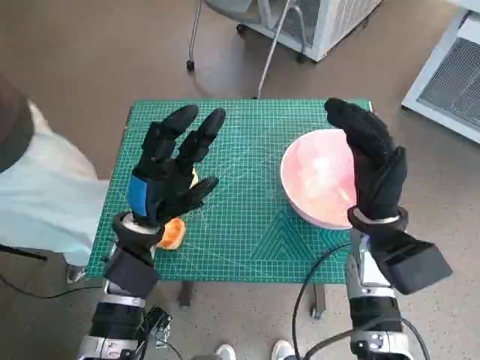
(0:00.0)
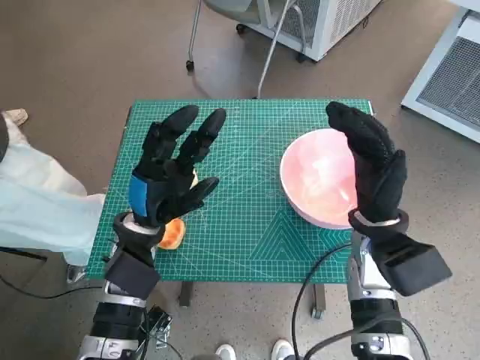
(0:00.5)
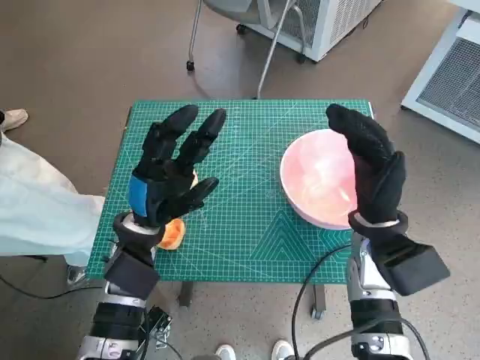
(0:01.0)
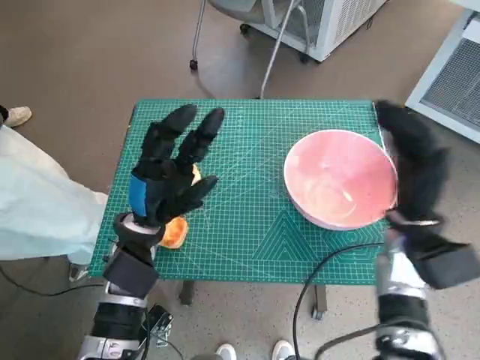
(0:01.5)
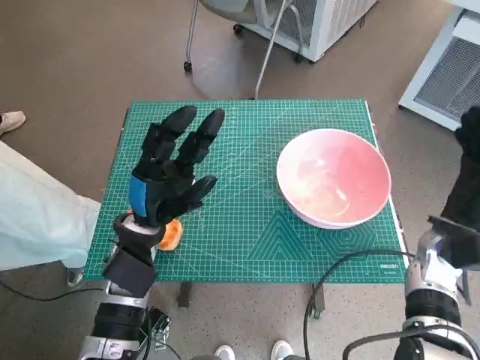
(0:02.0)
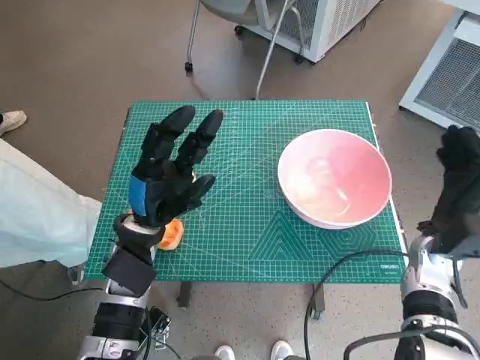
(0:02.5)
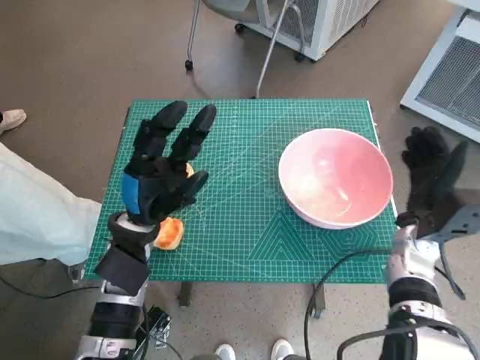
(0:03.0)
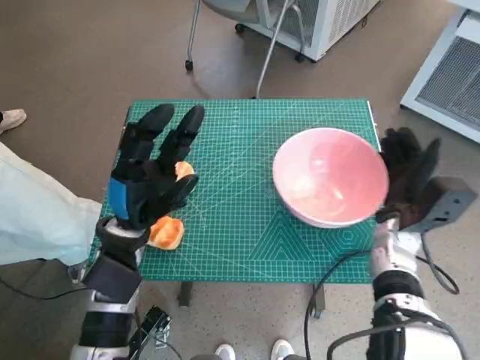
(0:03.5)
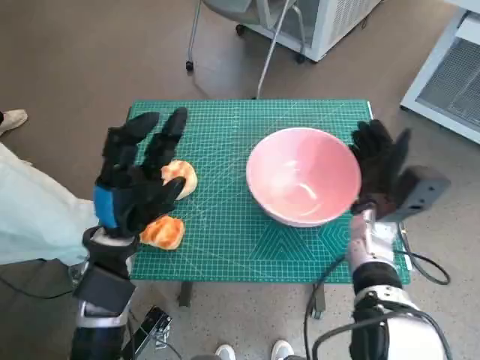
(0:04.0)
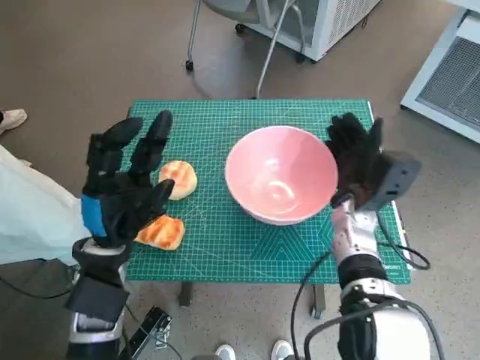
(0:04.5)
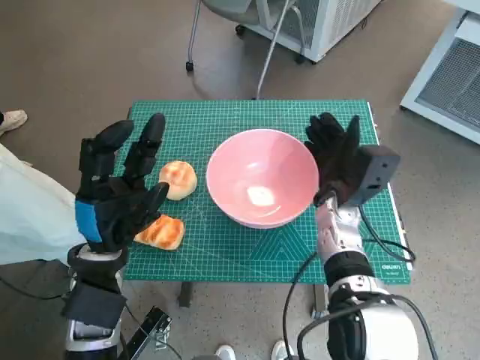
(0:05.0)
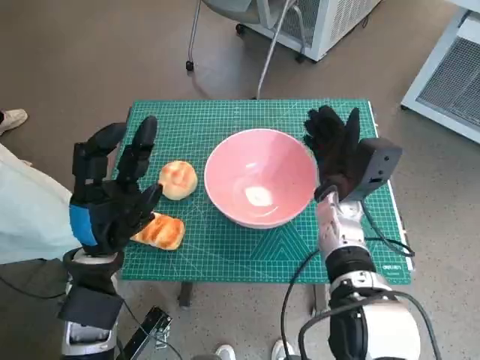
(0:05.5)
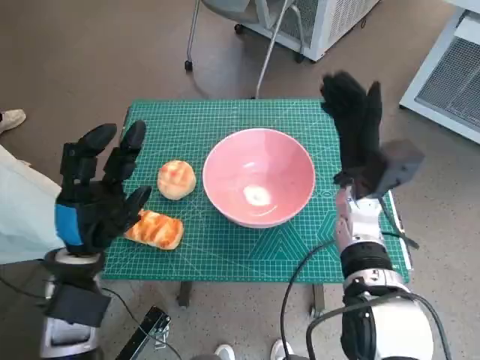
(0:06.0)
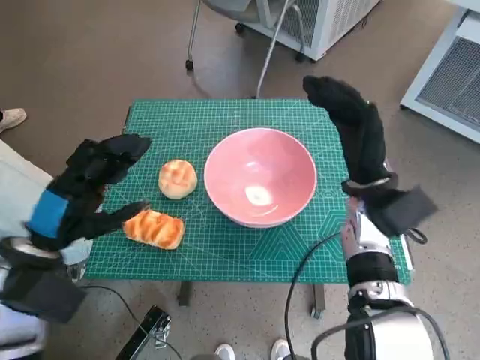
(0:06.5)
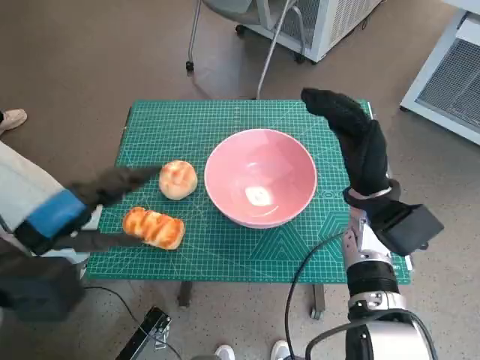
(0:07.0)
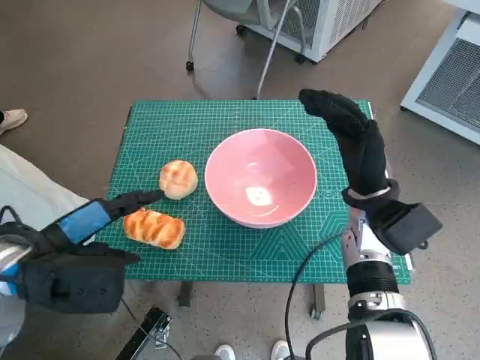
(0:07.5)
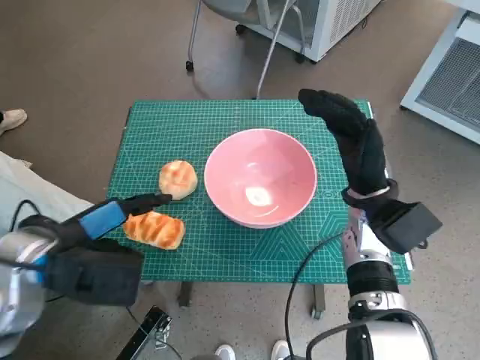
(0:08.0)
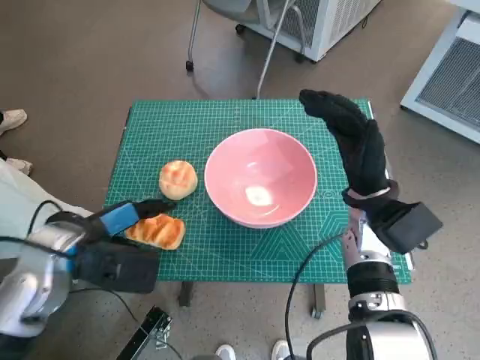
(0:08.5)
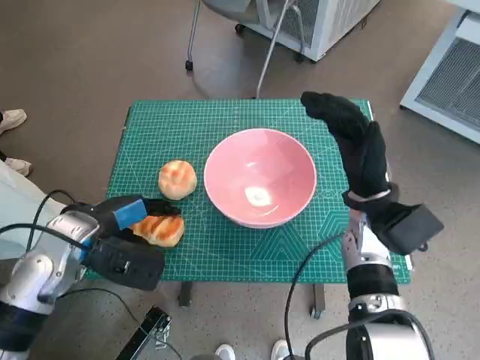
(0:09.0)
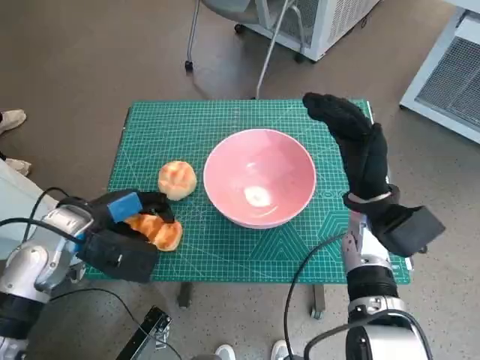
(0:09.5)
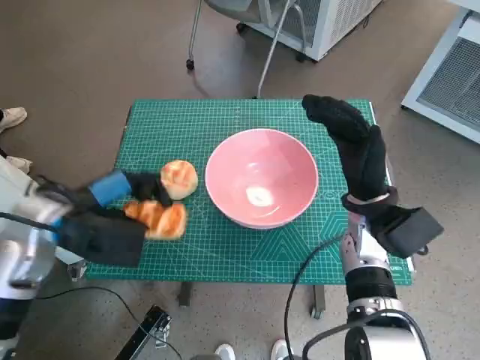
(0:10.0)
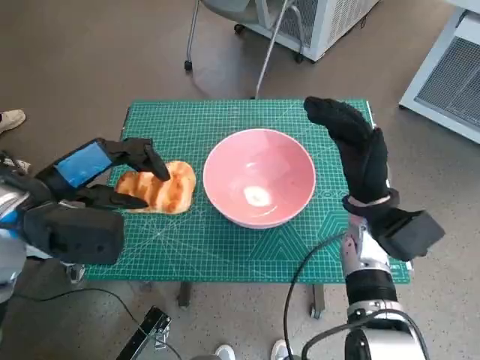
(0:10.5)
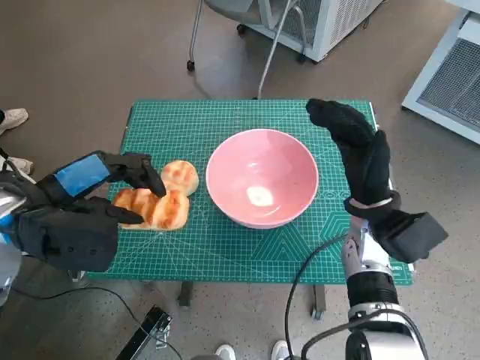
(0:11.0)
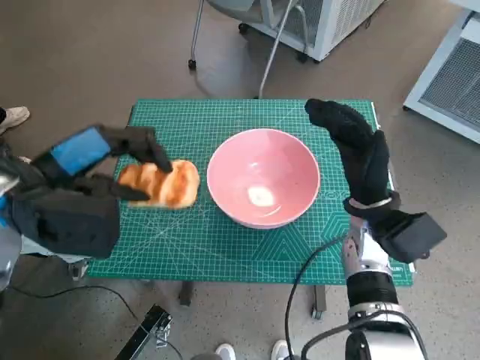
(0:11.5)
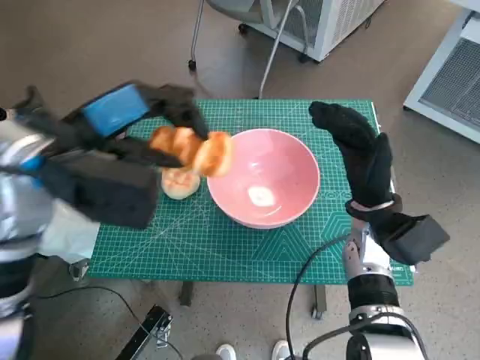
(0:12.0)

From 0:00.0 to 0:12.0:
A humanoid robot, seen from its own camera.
Task of the whole recording: Push the bowl to the center of the table and put the bread into the bowl.
Step, from 0:00.0 to 0:05.5: Move the pink bowl to the center of table with right hand.
Step, from 0:06.0 to 0:09.5: Grasp the long bread with left hand.
From 0:02.0 to 0:04.0: The right hand moves to the left, roughly 10 cm.
From 0:04.0 to 0:06.0: The right hand moves roughly 5 cm.
From 0:06.0 to 0:08.0: The left hand heads upward, covering roughly 5 cm.
From 0:08.0 to 0:10.0: The left hand is displaced forward by roughly 5 cm.
From 0:10.0 to 0:12.0: The left hand is displaced upward by about 10 cm.

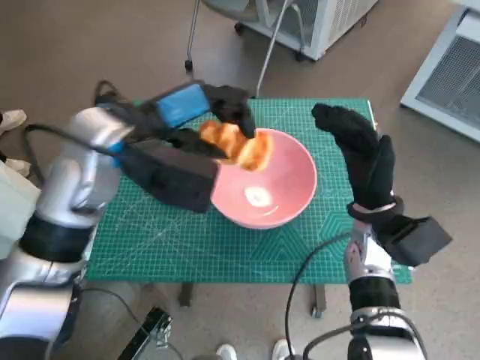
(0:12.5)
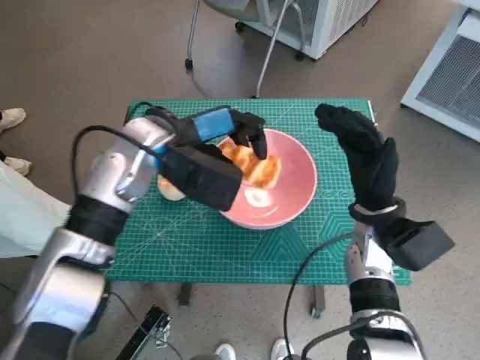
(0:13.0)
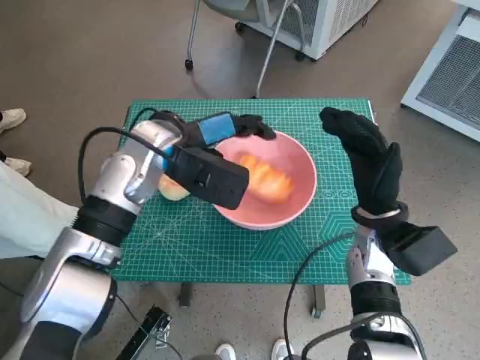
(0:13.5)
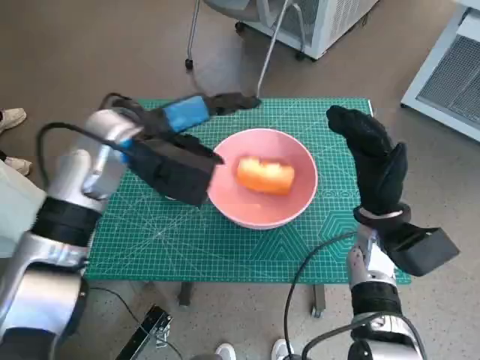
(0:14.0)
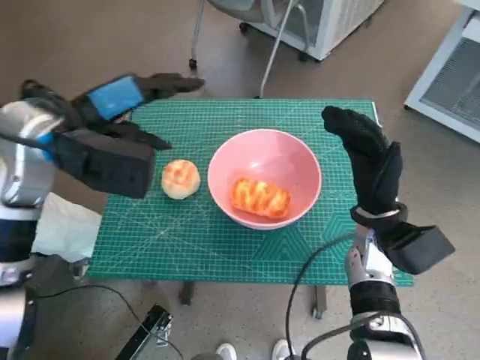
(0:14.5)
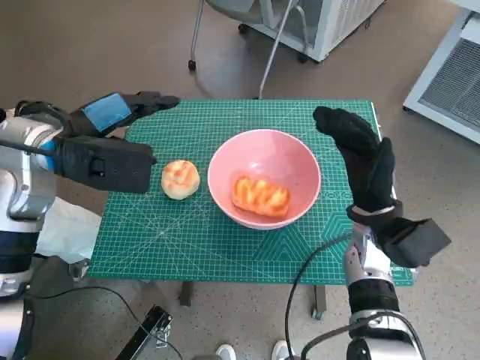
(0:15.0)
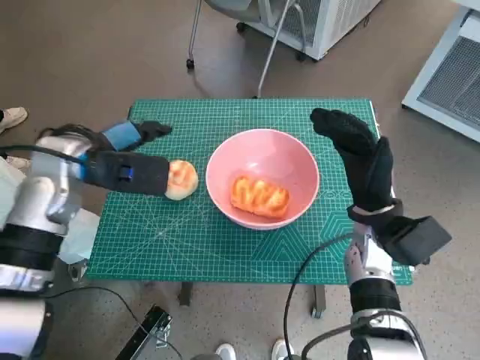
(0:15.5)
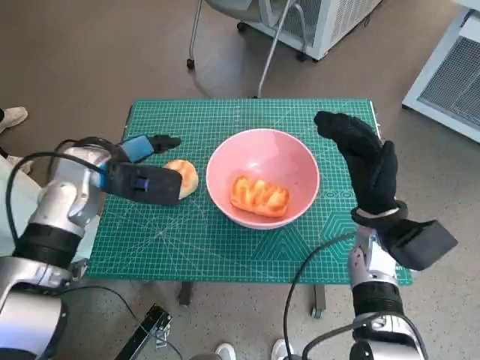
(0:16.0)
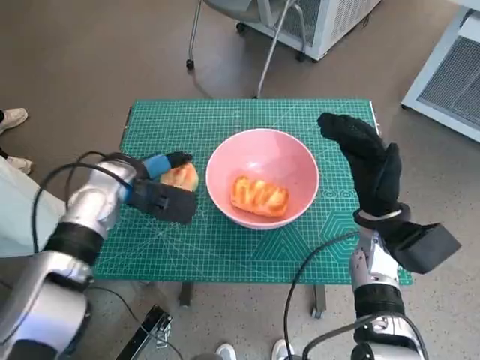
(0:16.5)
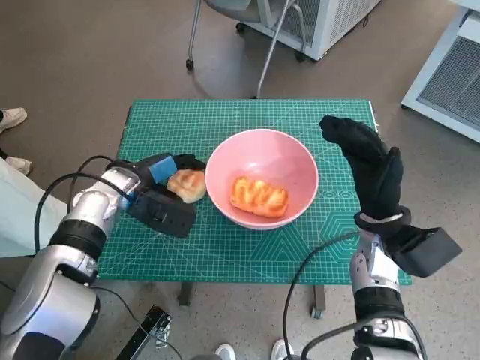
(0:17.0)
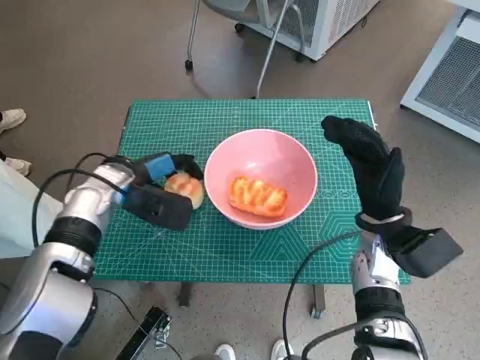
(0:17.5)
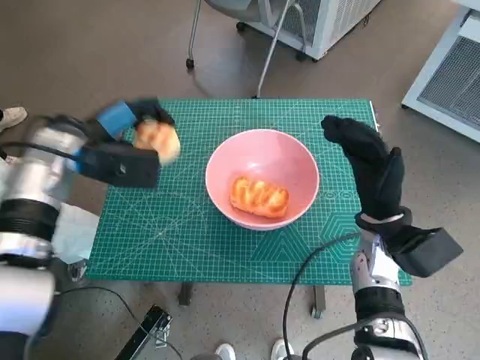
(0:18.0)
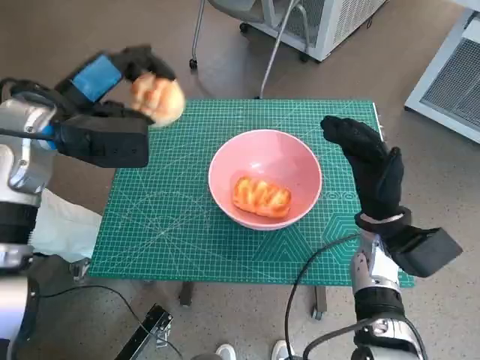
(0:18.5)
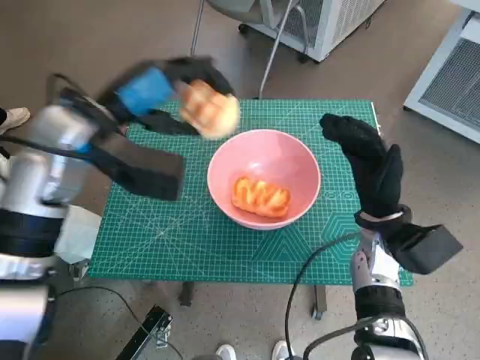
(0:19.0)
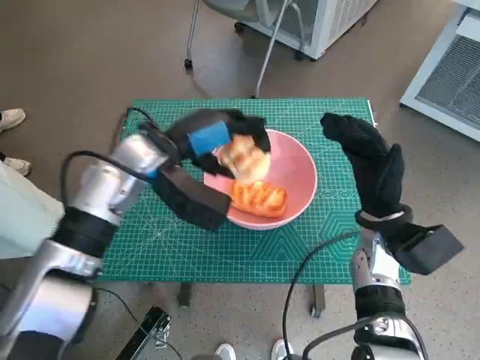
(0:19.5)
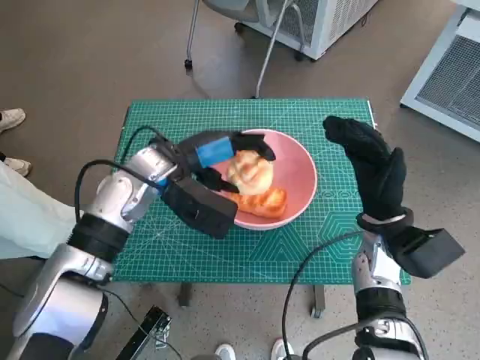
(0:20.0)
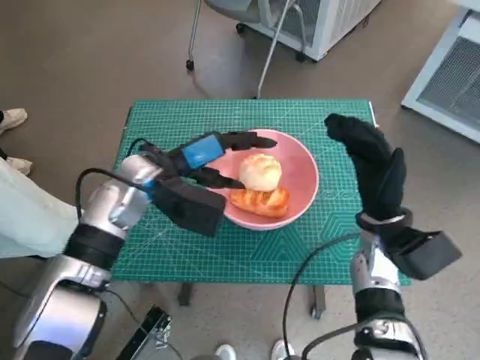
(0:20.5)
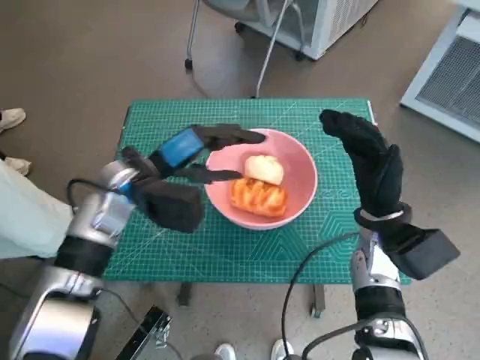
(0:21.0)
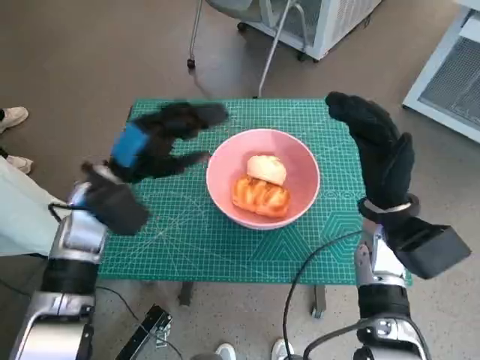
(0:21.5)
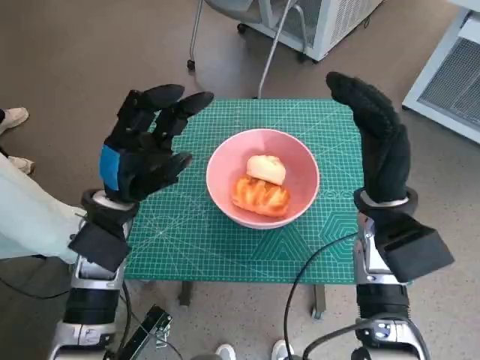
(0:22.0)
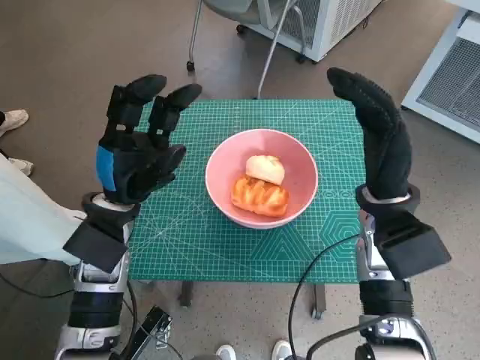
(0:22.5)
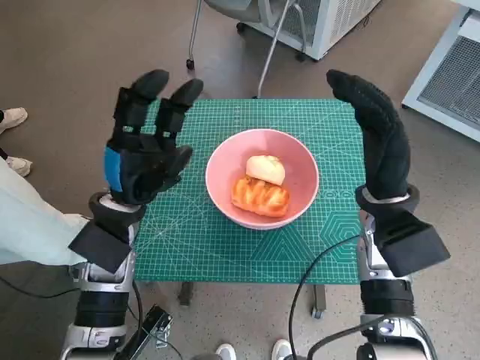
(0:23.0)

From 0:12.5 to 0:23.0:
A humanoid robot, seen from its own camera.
Task of the whole recording: Push the bowl to the center of the table and put the bread into the bowl.
Step, from 0:14.0 to 0:16.5: Grasp the round bread with left hand.
Step, from 0:17.0 to 0:20.5: Place the round bread in pink bowl with left hand.
From 0:12.5 to 0:14.5: The left hand shifts roughly 5 cm to the left.
From 0:14.5 to 0:16.5: The left hand shifts approximately 15 cm downward.
From 0:16.5 to 0:19.0: The left hand travels upward by some 10 cm.
From 0:19.0 to 0:21.0: The left hand travels downward by some 10 cm.
From 0:21.0 to 0:23.0: The left hand heads backward, covering approximately 5 cm.

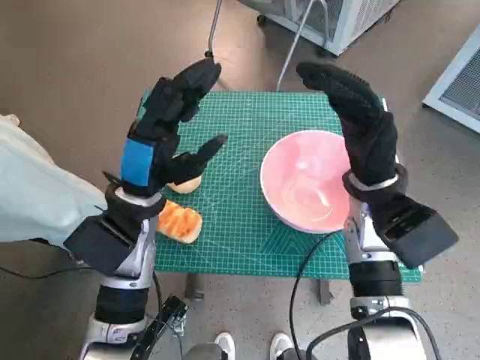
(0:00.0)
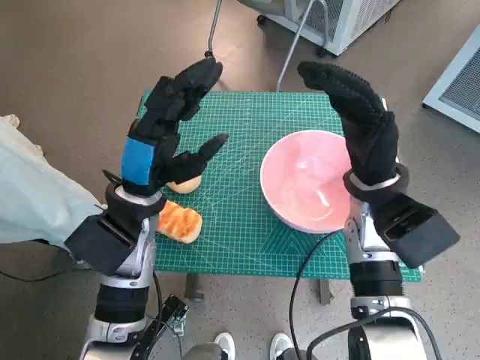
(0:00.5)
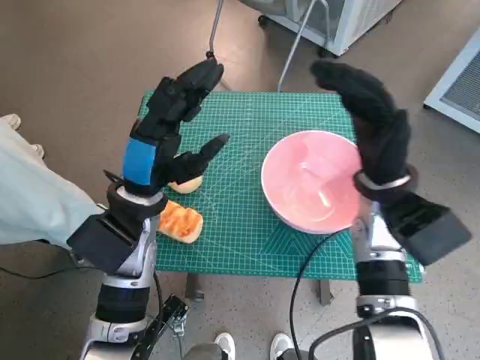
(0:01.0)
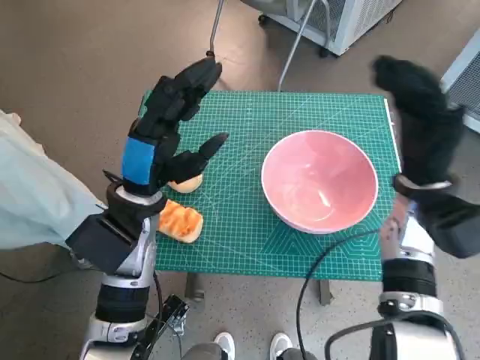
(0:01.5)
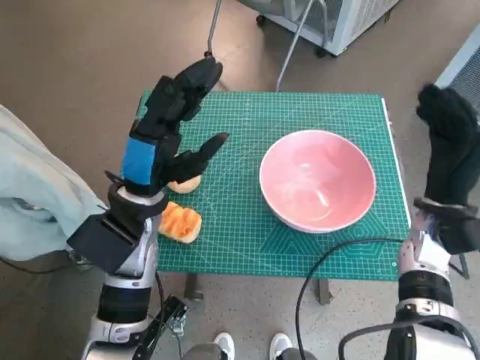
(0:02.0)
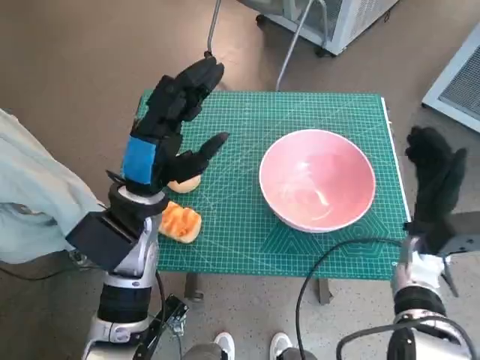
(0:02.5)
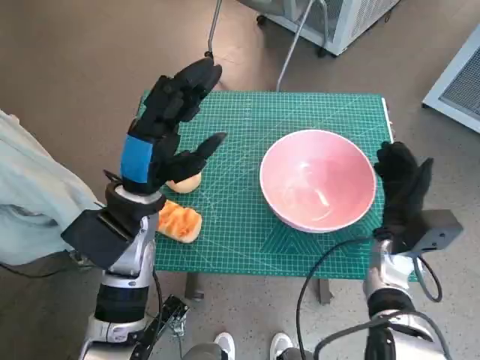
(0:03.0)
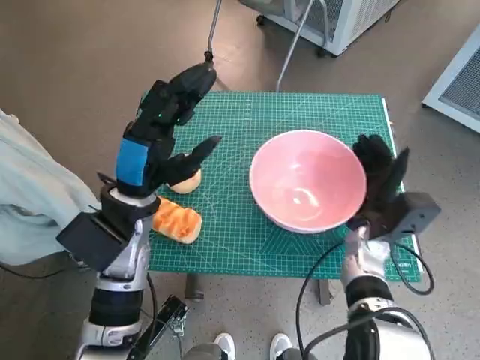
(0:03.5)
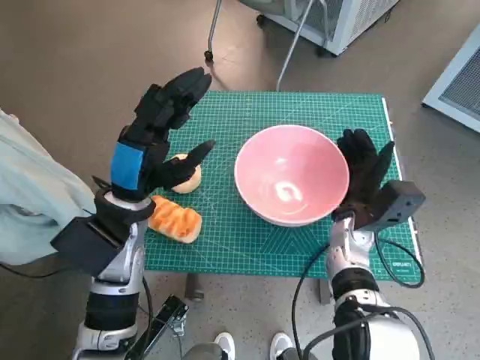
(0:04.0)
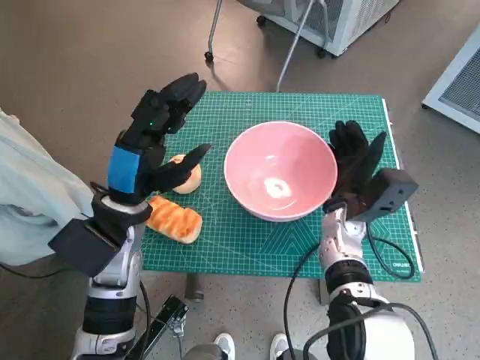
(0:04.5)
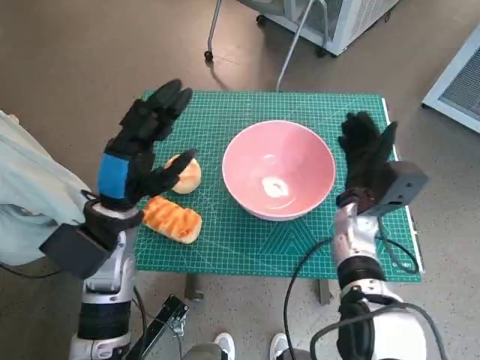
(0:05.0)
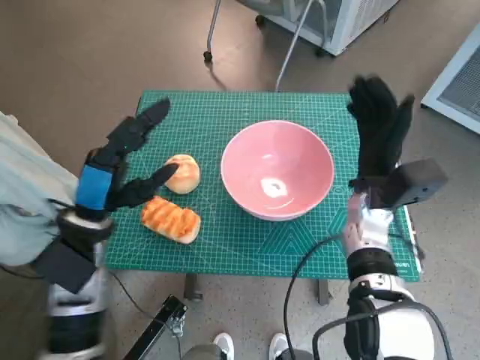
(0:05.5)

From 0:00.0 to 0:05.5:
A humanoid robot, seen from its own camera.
Task of the whole recording: Push the bowl to the center of the table and put the bread into the bowl.
Step, from 0:00.0 to 0:04.5: Move the pink bowl to the center of table with right hand.
From 0:02.0 to 0:03.5: The right hand is displaced downward and to the left by approximately 10 cm.
From 0:03.5 to 0:05.5: The left hand travels to the left by roughly 5 cm, while the right hand goes about 5 cm upward.
